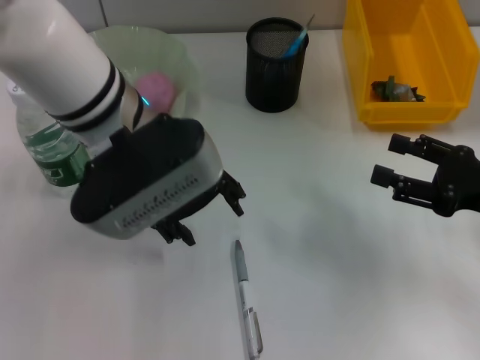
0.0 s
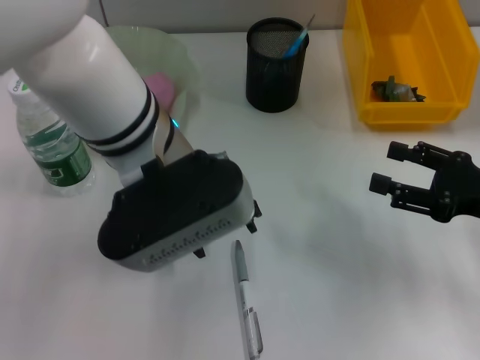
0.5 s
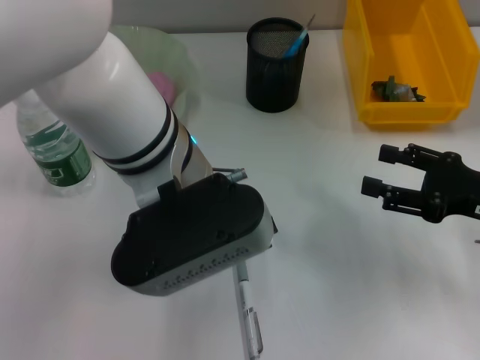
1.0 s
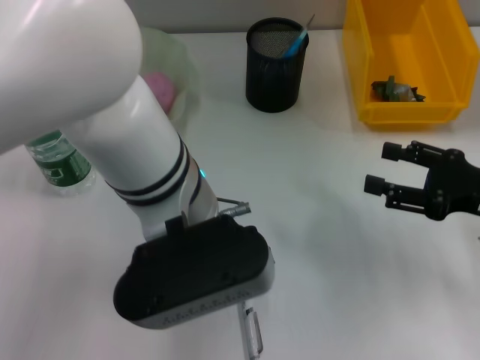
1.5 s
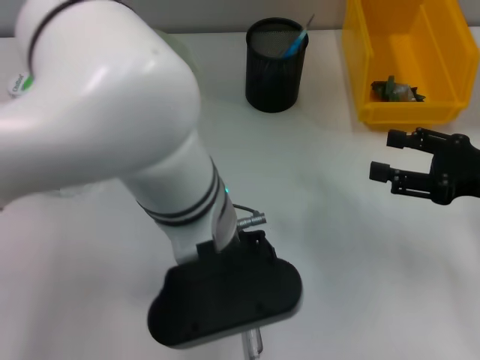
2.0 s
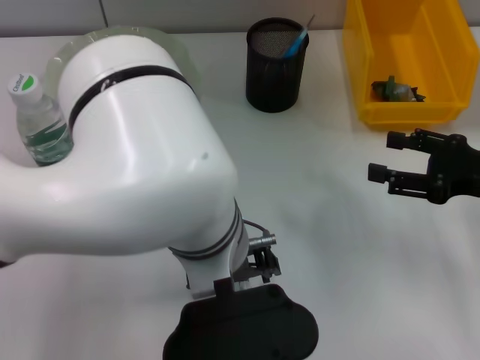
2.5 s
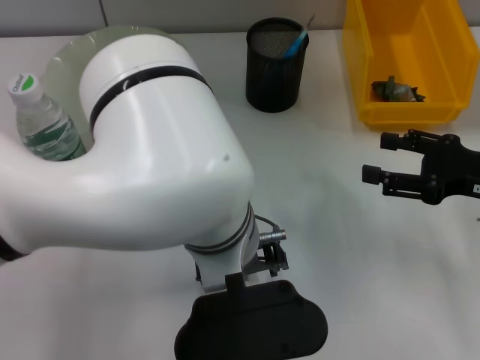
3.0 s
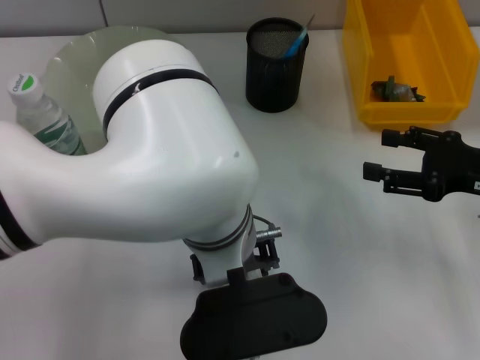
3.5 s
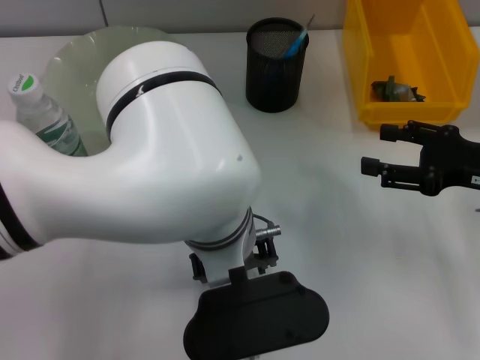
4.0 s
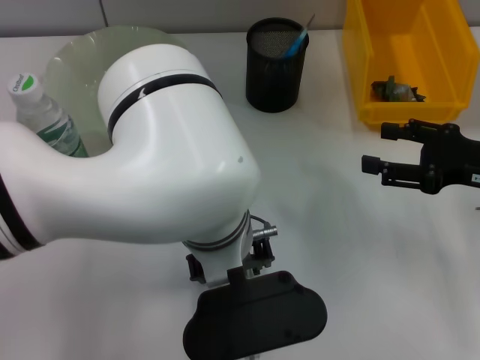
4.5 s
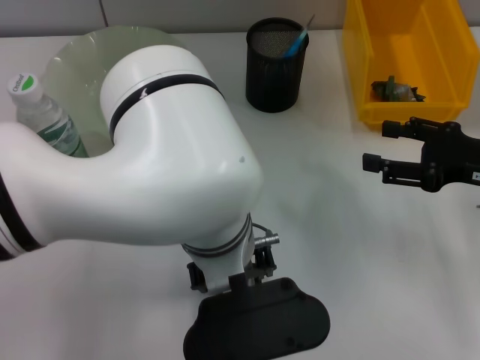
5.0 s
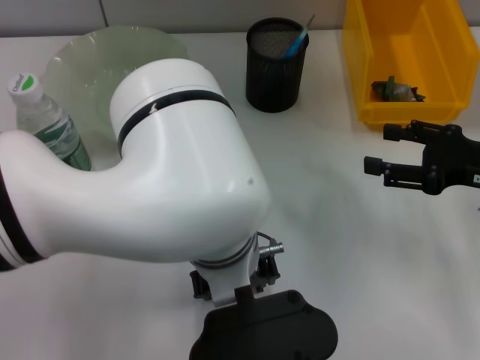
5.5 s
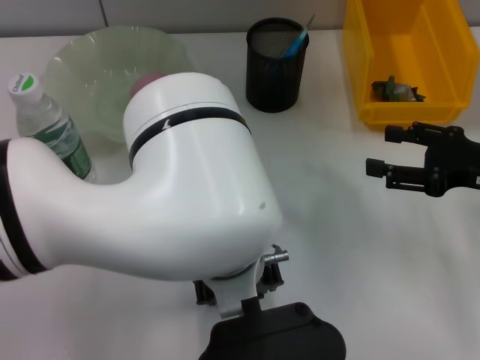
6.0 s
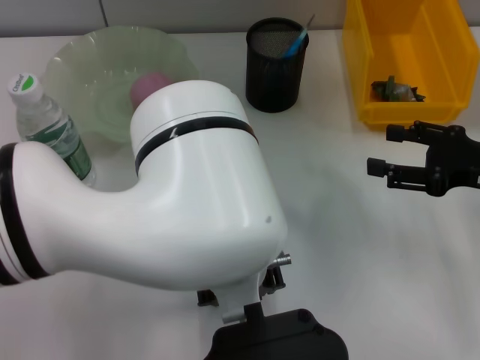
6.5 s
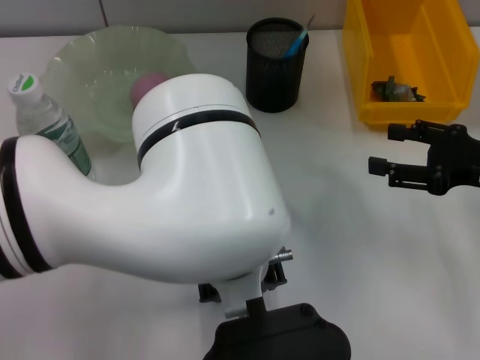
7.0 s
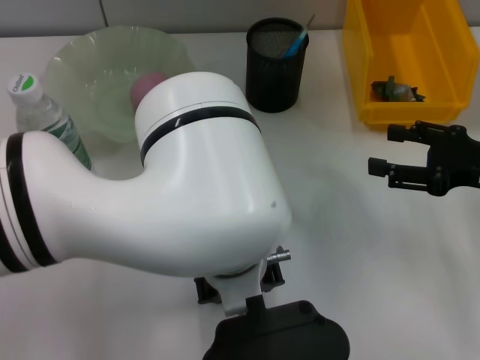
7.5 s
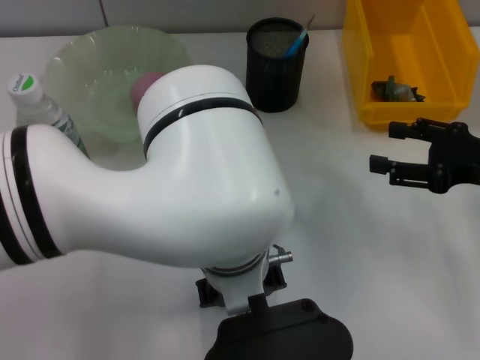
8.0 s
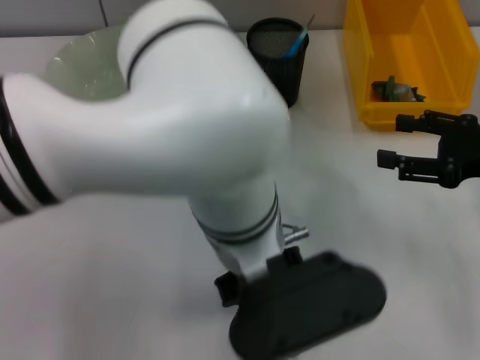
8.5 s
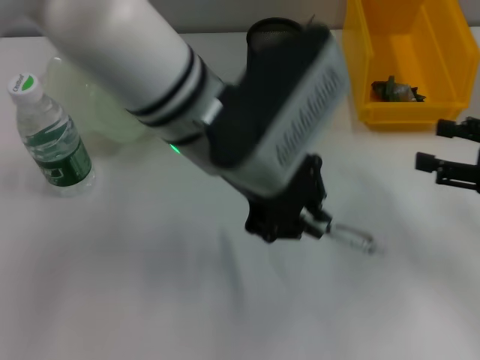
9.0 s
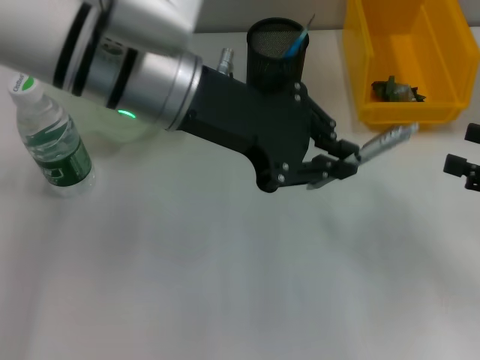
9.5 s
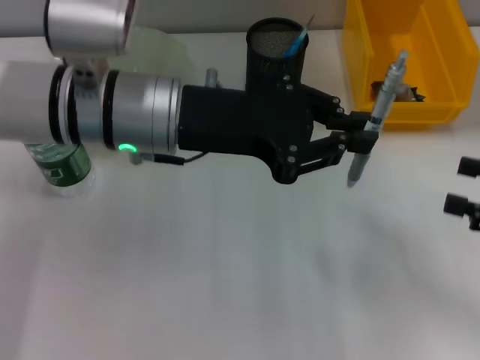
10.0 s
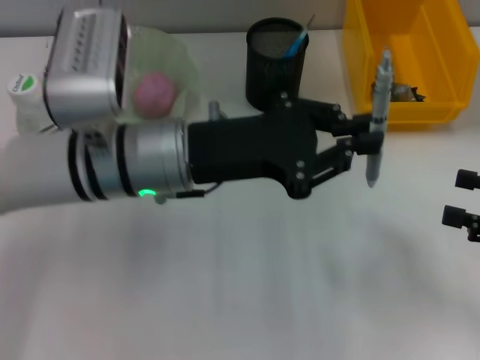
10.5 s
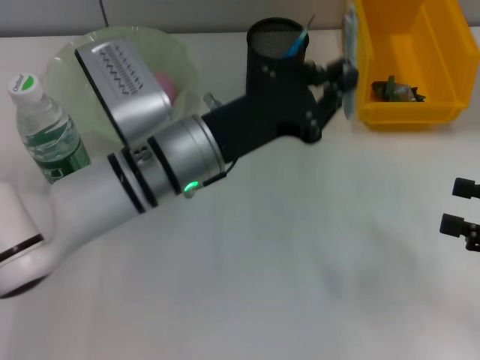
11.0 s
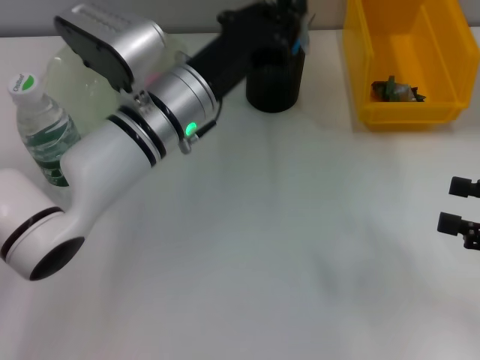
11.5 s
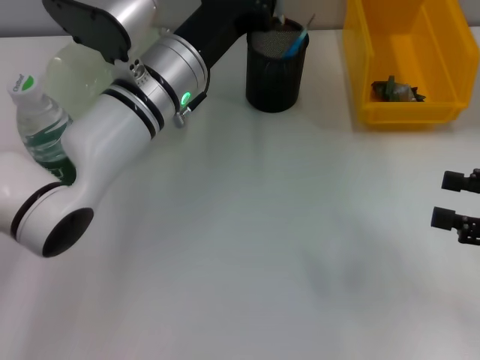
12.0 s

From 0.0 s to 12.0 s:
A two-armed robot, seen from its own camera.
Step, from 0.0 s to 7.5 s: Grab the gray spring-action pen with the left hand.
From 0.0 s to 2.0 s: The left gripper shifts about 10 cm to the right and backward.
From 6.0 s to 8.0 s: The left gripper closes its fingers.
From 8.0 s to 10.0 s: The right gripper shifts approximately 10 cm backward and to the right; the left gripper goes some 15 cm to the left and forward.
From 10.0 s to 12.0 s: The left gripper moves downward, about 5 cm.

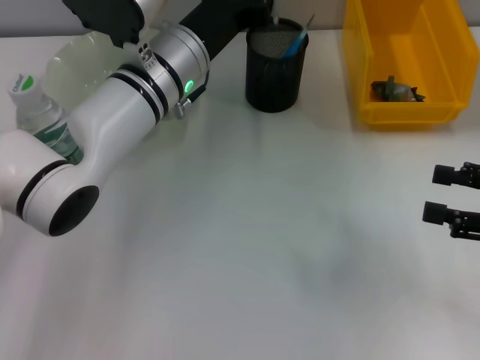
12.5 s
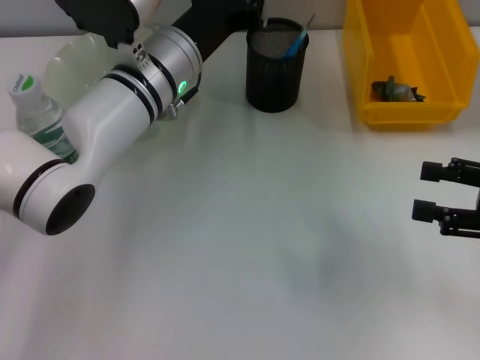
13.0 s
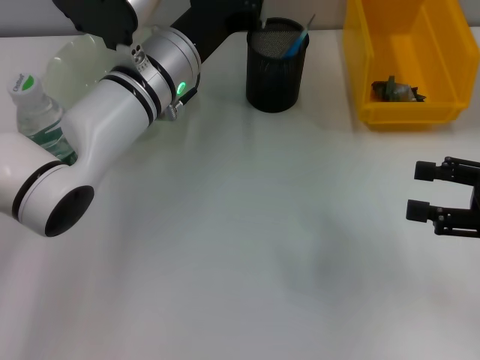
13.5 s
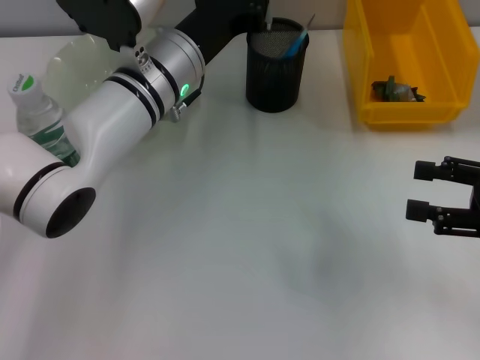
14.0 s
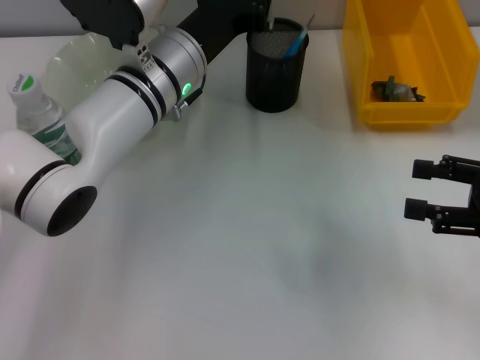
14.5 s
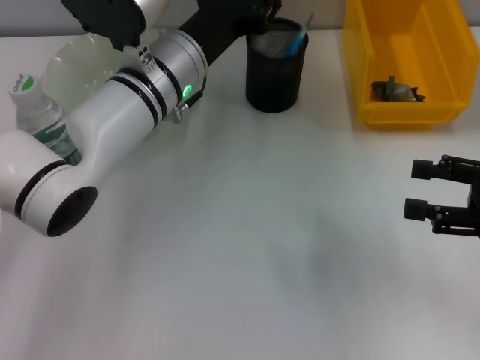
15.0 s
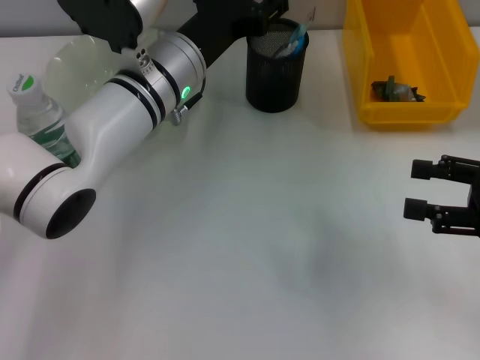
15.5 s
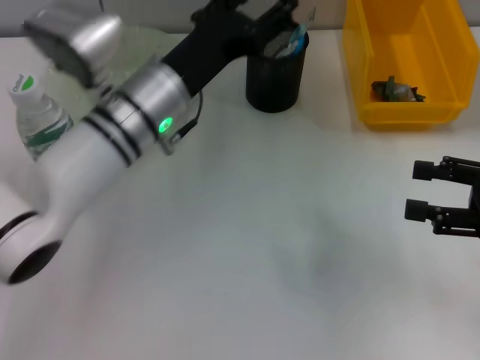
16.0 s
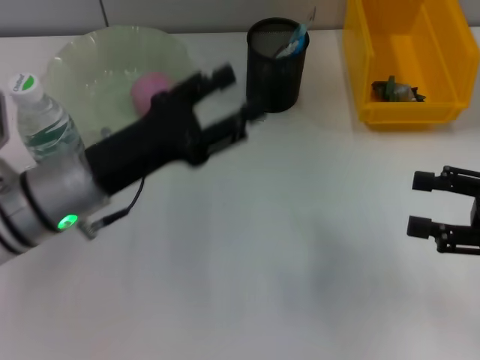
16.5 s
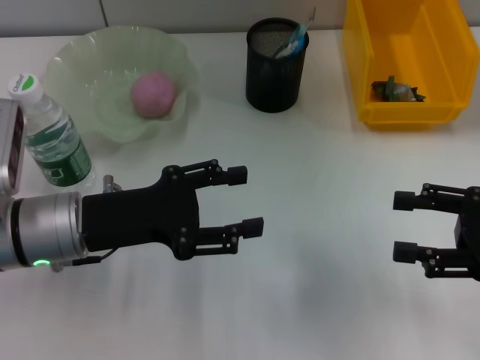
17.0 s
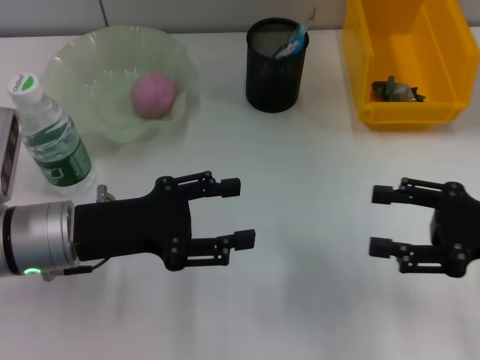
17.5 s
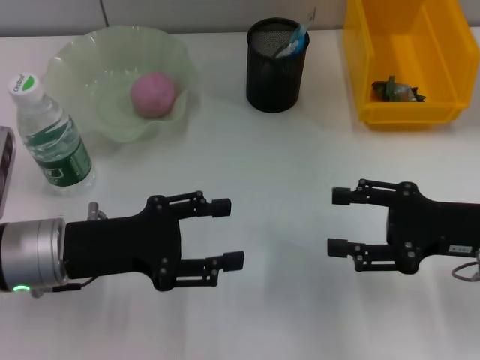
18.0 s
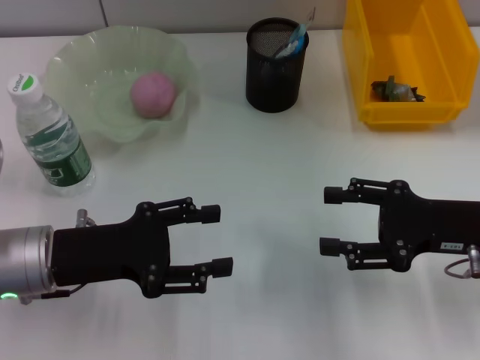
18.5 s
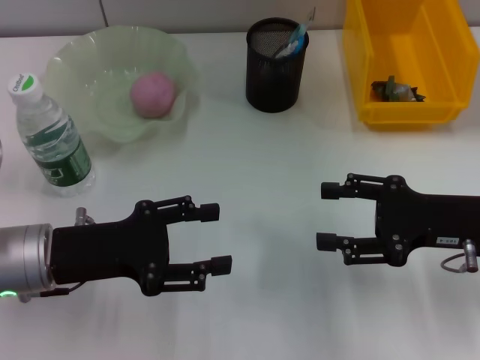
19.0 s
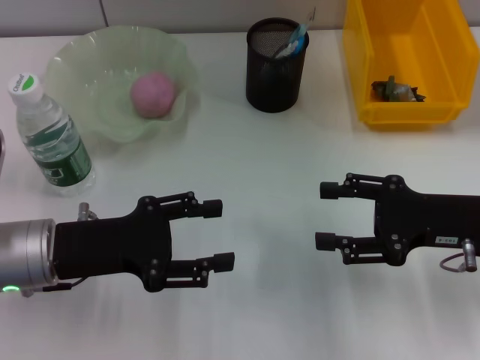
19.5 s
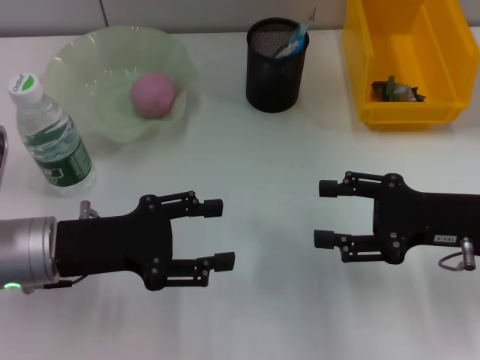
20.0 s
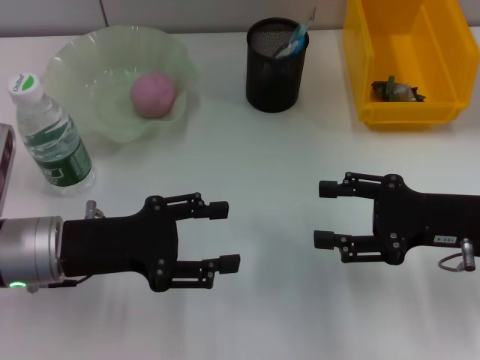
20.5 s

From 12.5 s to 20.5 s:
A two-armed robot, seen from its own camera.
Step, from 12.5 s to 15.0 s: Place the gray spring-action pen into the pen holder with the left hand.
From 12.5 s to 14.5 s: There are only small adjustments of the grippers.
From 14.5 s to 16.5 s: The left gripper is displaced backward and to the left by approximately 15 cm, and opens.
From 16.5 s to 18.5 s: The right gripper shifts roughly 5 cm to the left. Meanwhile the left gripper moves some 5 cm.
From 18.5 s to 20.5 s: Both grippers stay put.
